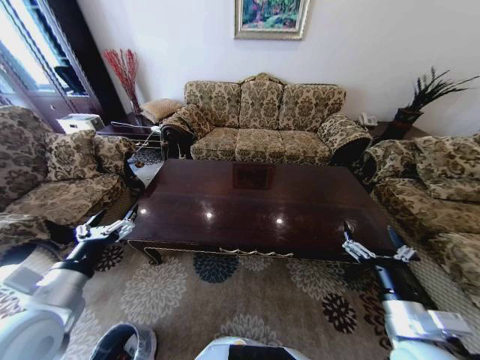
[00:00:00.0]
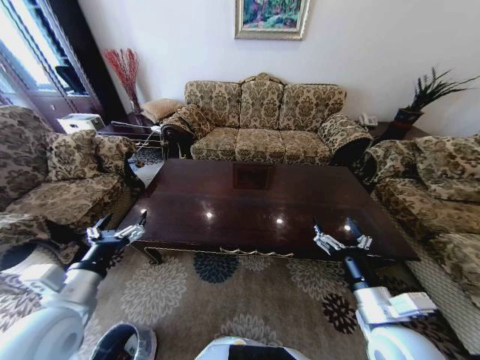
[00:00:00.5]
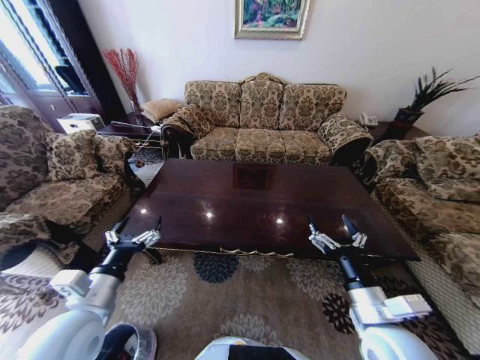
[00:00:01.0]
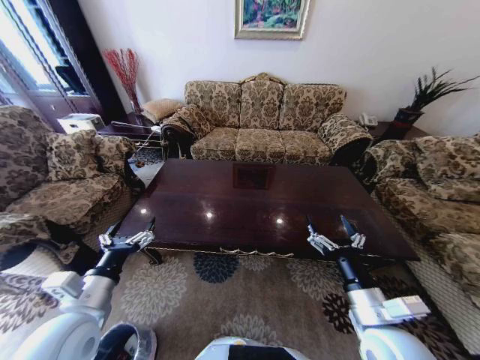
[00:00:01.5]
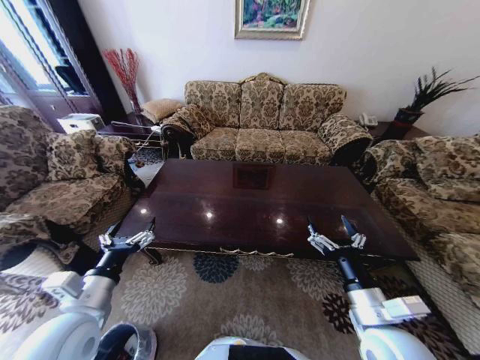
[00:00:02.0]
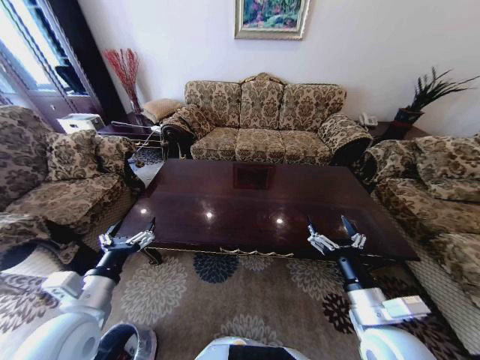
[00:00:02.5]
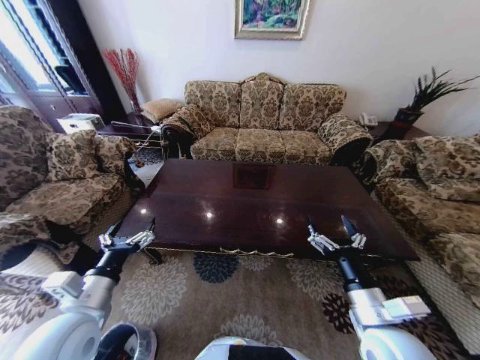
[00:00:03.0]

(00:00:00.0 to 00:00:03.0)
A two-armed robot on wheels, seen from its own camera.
Task of the whole recording: Move to the front of the table and place the trash on the table into the trash bin.
00:00:00.0 - 00:00:01.5: The left gripper moves some 5 cm. The right gripper ends up approximately 5 cm from where it was.
00:00:01.5 - 00:00:03.0: Both grippers stay about where they are.
